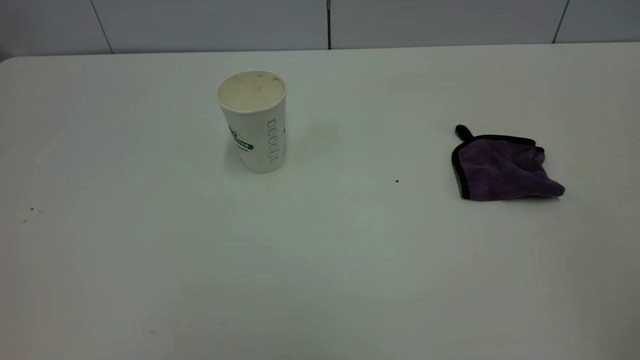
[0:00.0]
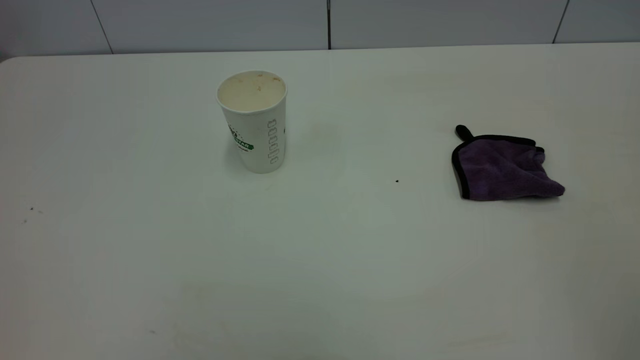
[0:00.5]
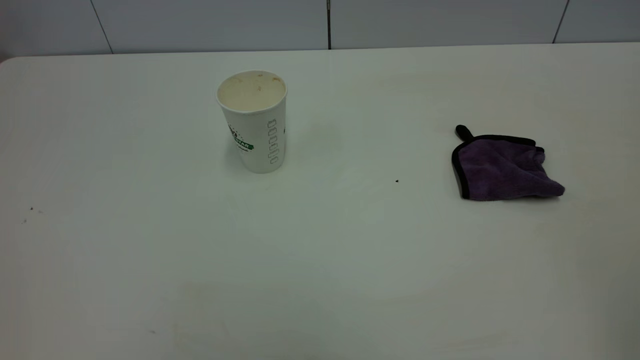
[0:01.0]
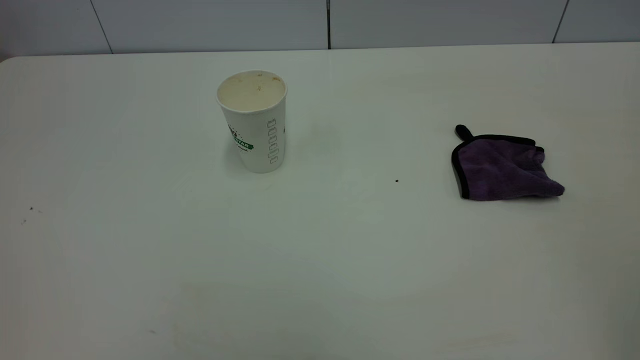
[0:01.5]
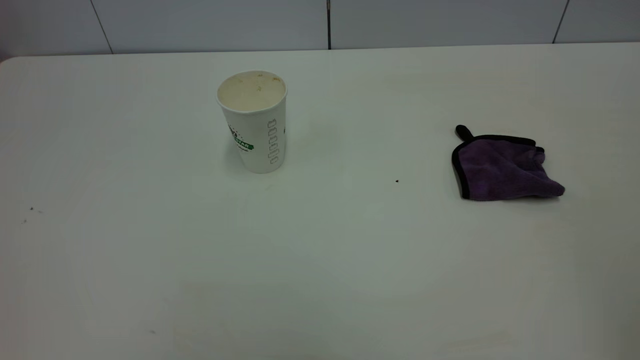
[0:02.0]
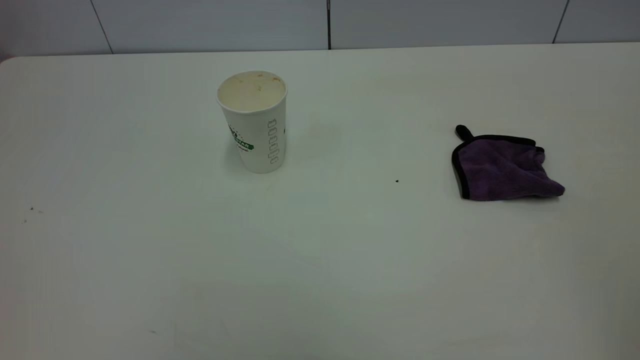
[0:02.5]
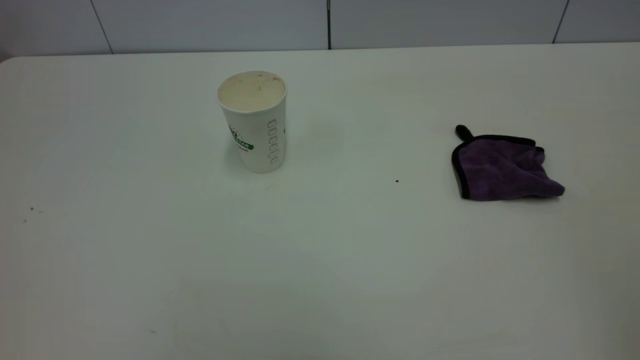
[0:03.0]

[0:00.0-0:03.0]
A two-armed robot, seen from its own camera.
Task of the whole recording: the left gripper pick up the fallen cup and place it upright, the right gripper grasp the purple rag and wipe the tea stain on the table, the right gripper put the purple rag back in its original position.
0:01.5 to 0:03.0: Both grippers stay about where they are.

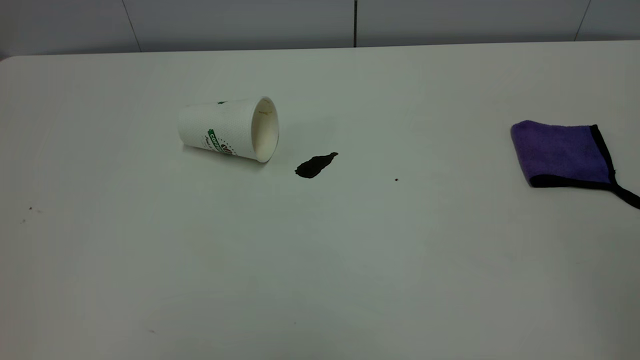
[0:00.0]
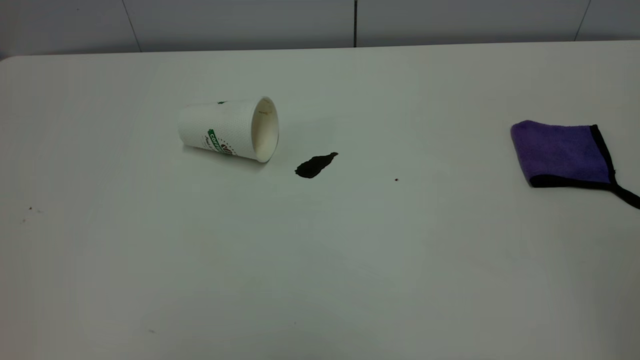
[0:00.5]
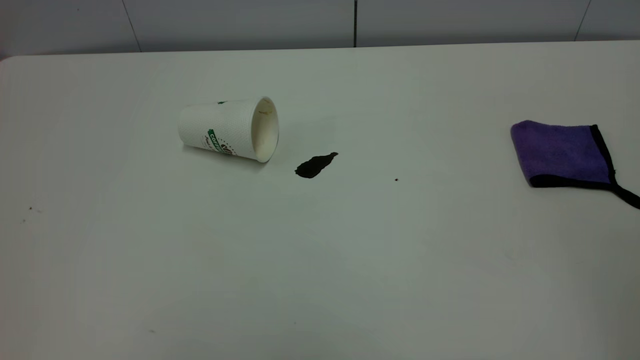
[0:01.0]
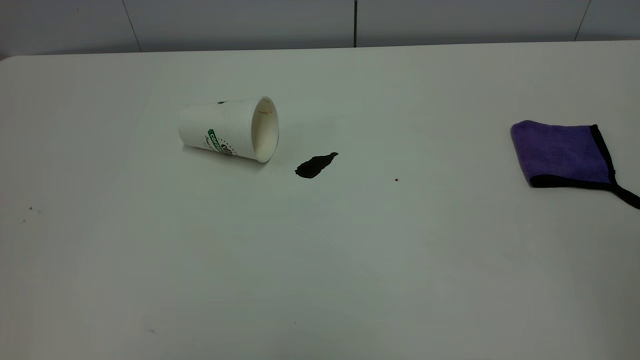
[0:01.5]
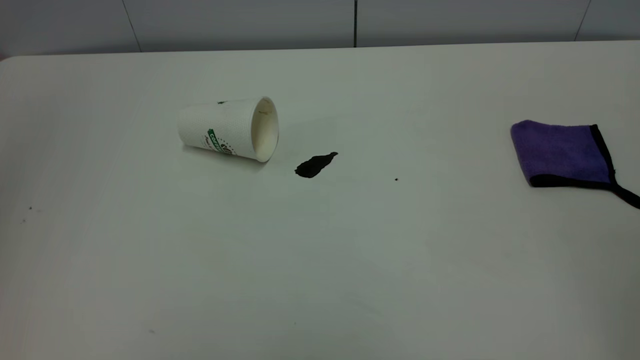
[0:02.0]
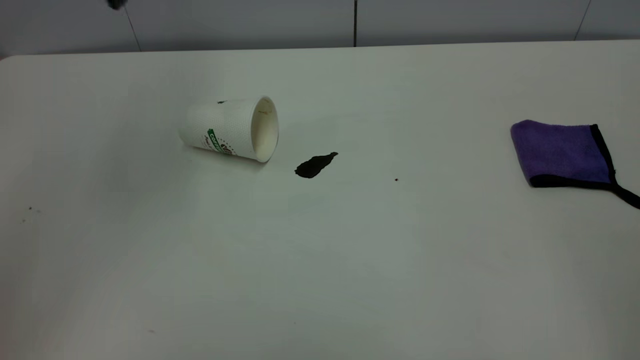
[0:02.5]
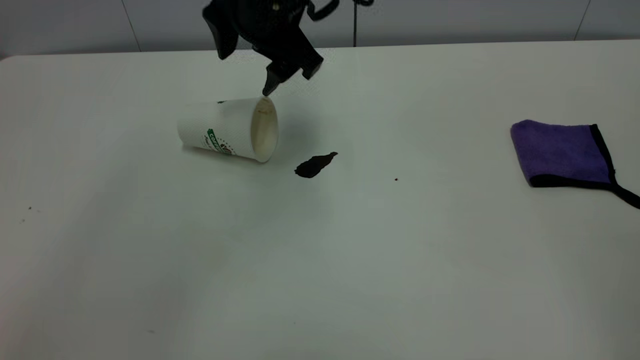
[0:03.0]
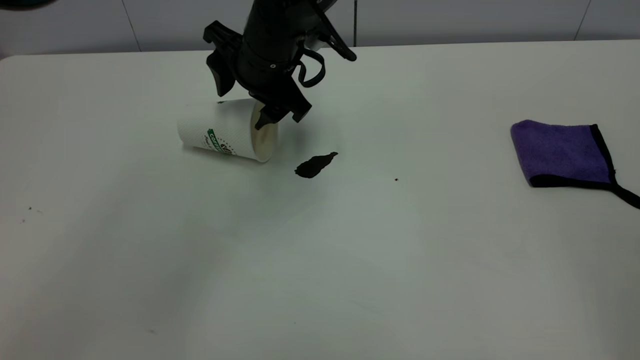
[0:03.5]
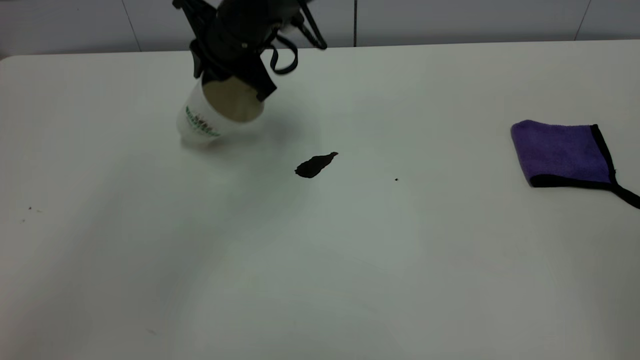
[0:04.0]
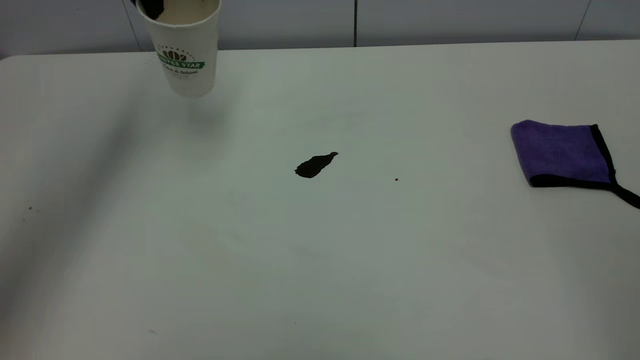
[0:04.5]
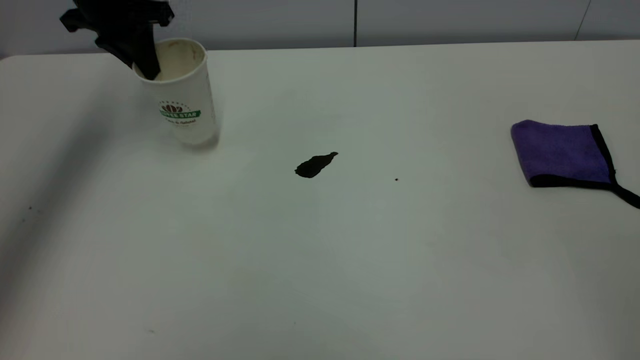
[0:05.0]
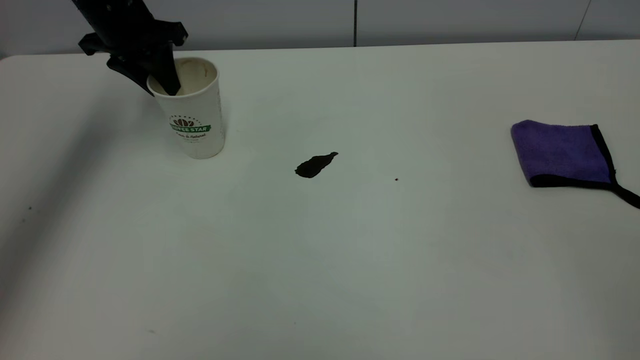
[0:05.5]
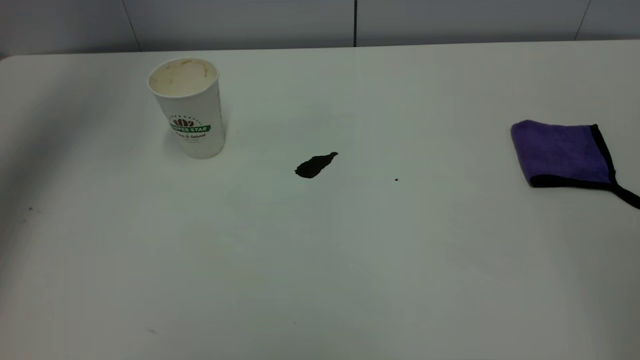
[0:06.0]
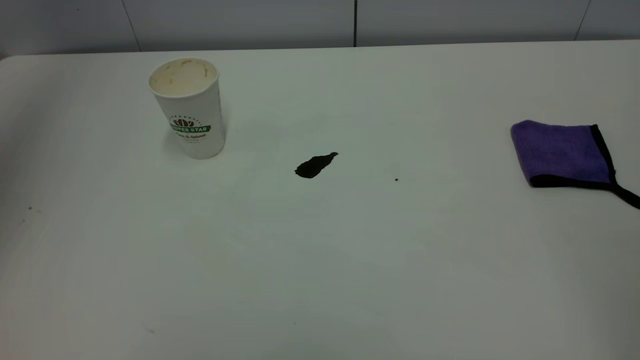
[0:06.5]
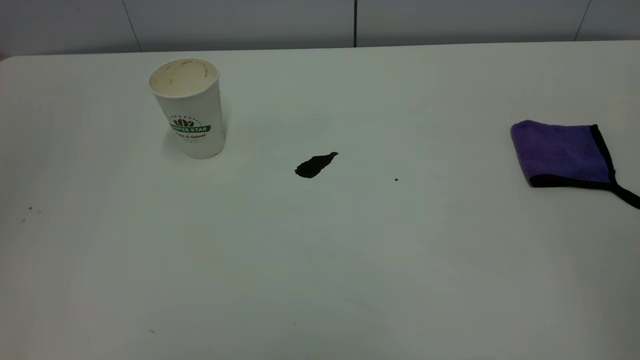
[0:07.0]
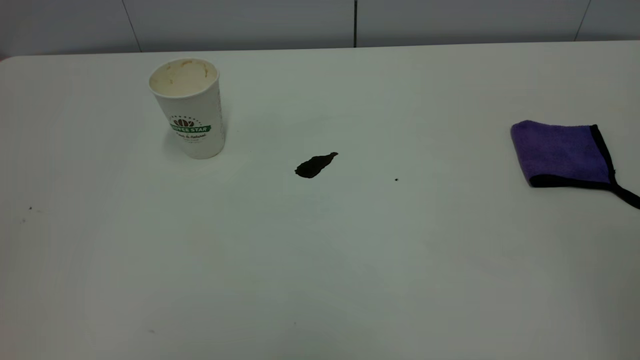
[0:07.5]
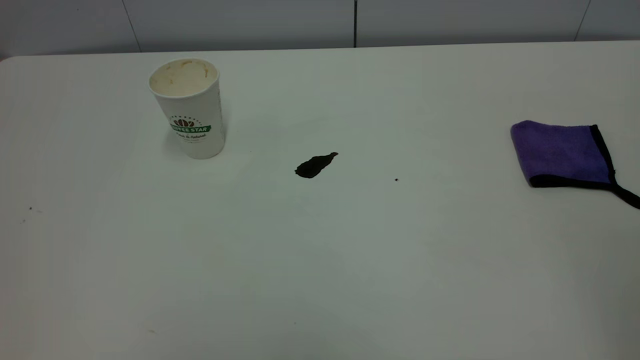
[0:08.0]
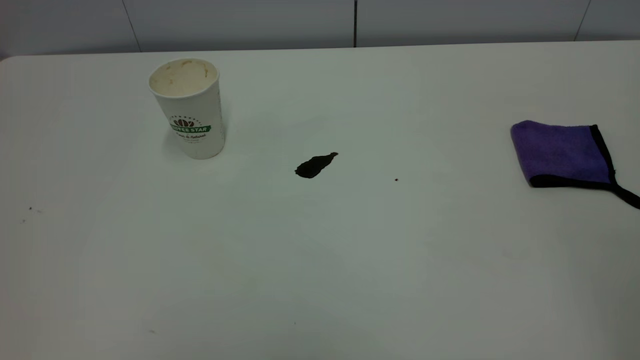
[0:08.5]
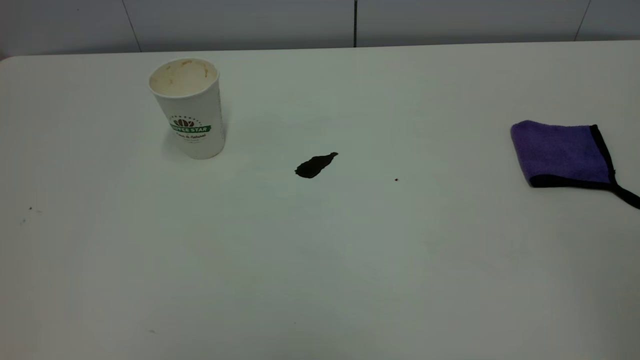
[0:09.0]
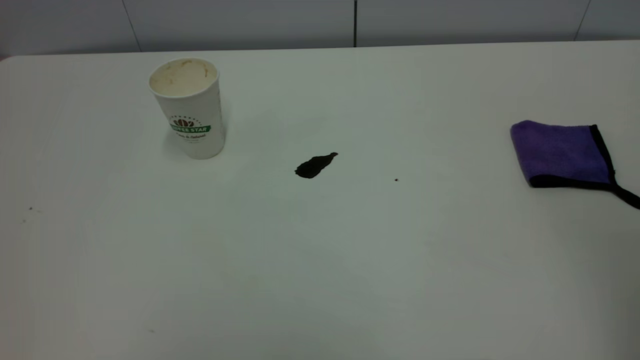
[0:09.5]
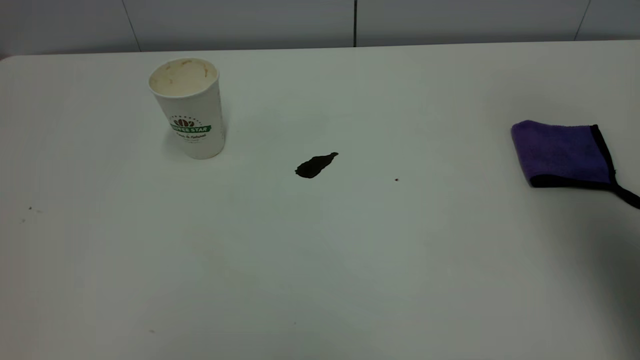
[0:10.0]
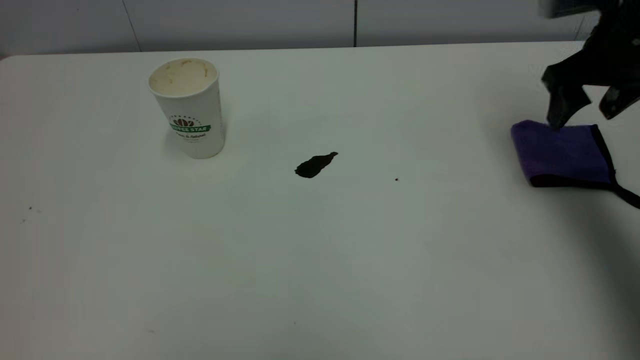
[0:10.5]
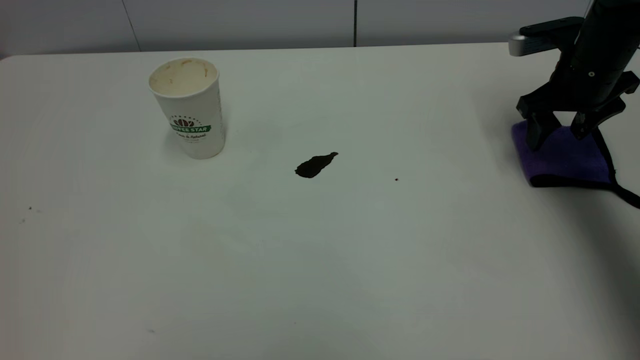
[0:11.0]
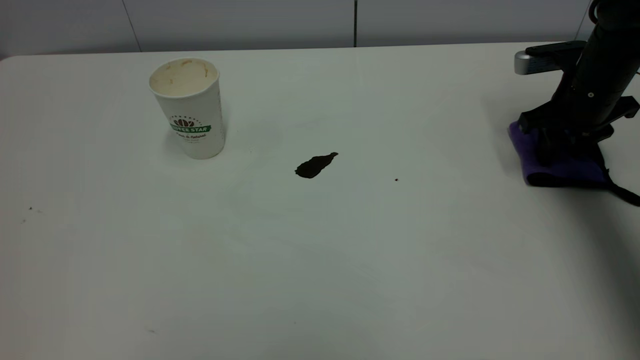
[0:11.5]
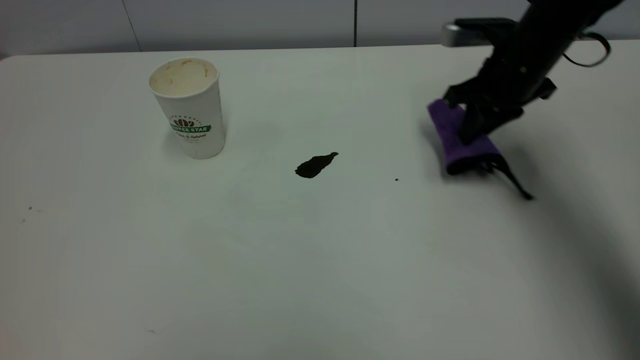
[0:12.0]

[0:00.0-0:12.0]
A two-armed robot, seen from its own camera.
Task of the whole recording: the left gripper pick up the fallen cup and place it upright, the right gripper grasp the purple rag and wipe the coffee stain on the table, the right gripper put the purple rag back in its original position.
Step, 0:00.0 to 0:05.5: Stand the paper cup upright.
0:02.0 to 0:04.0: The left gripper shifts approximately 40 cm downward, forward and to the right, and closes up.
0:04.0 to 0:06.0: The left gripper goes up and down, roughly 20 cm each way, reversing 2 times, and opens up.
0:06.0 to 0:08.0: The left gripper moves backward, roughly 50 cm, and closes.
0:08.0 to 0:10.0: The right gripper goes about 25 cm forward.
0:10.0 to 0:12.0: The right gripper travels downward, forward and to the left by roughly 30 cm, and closes its fingers.

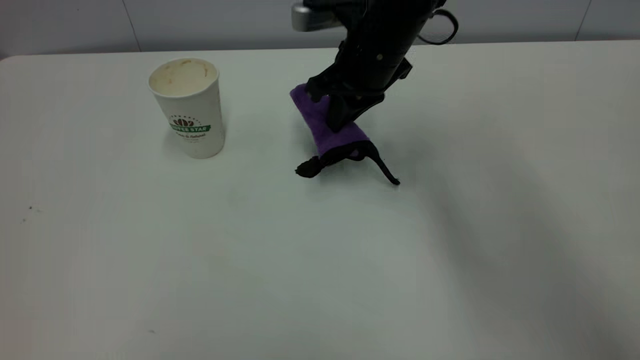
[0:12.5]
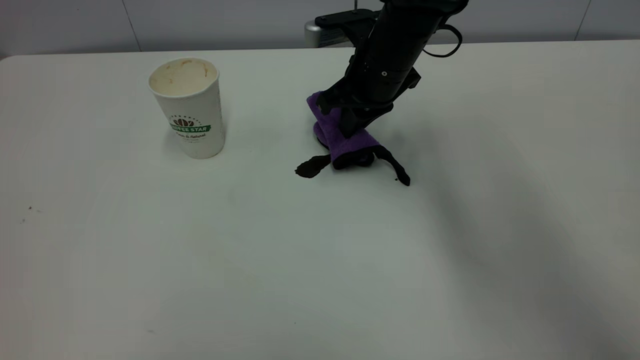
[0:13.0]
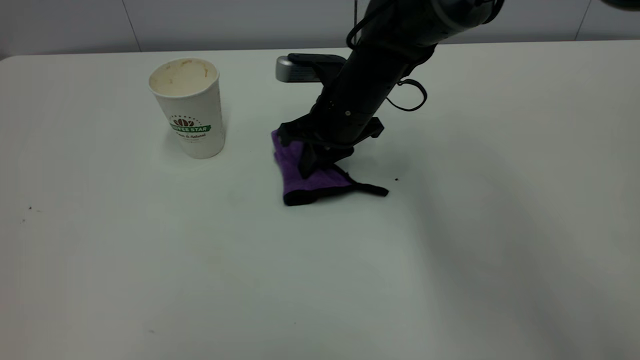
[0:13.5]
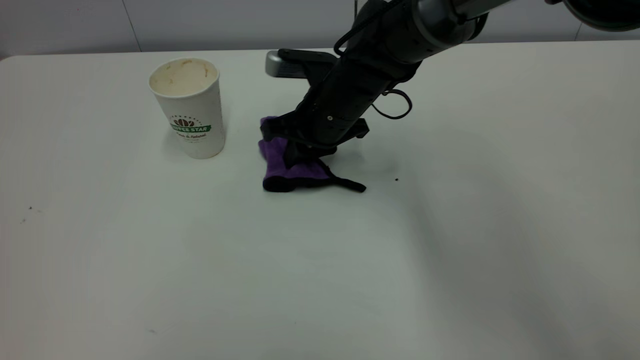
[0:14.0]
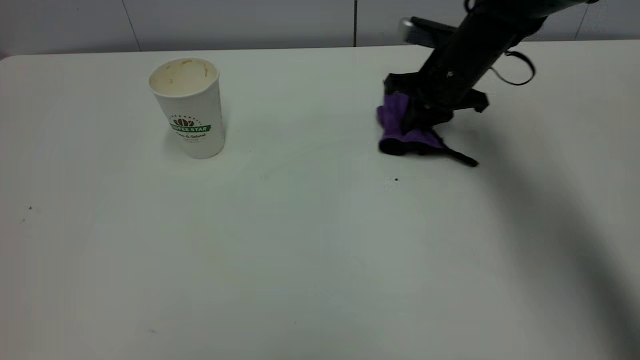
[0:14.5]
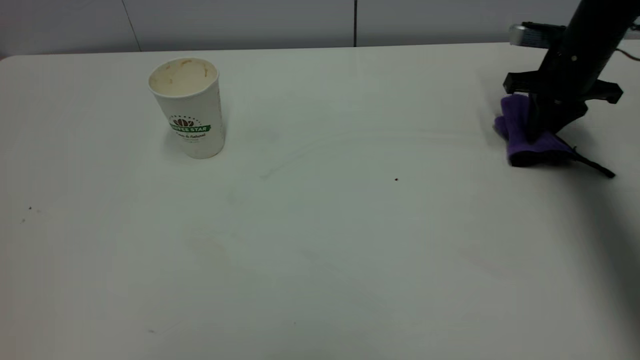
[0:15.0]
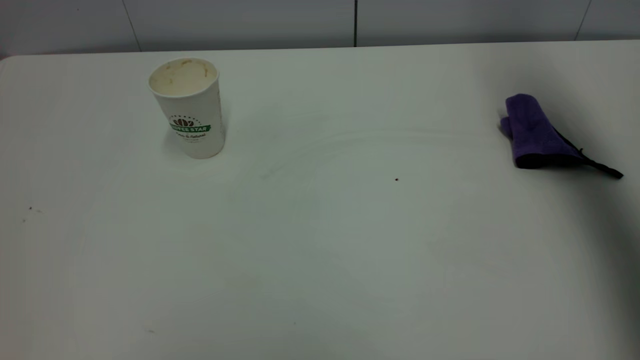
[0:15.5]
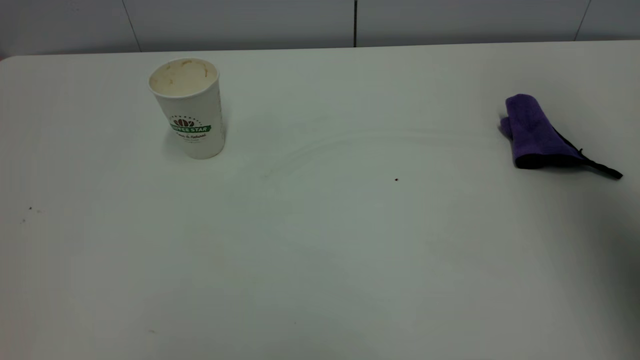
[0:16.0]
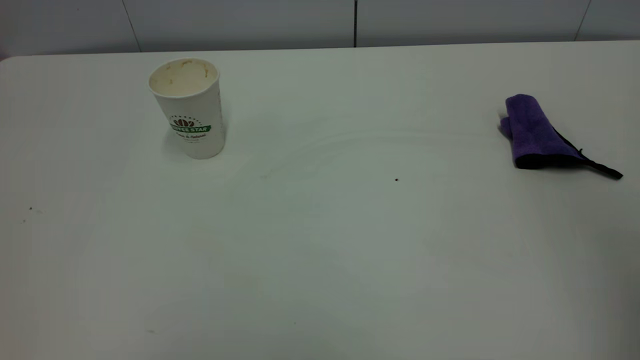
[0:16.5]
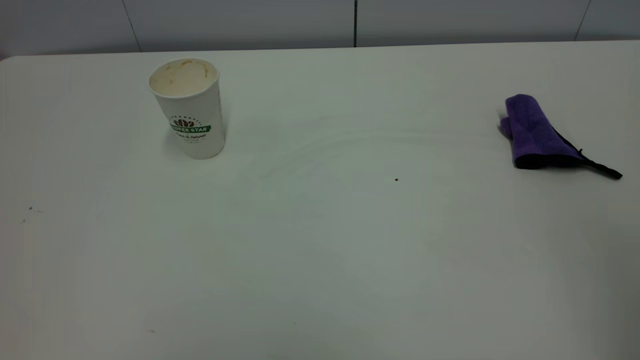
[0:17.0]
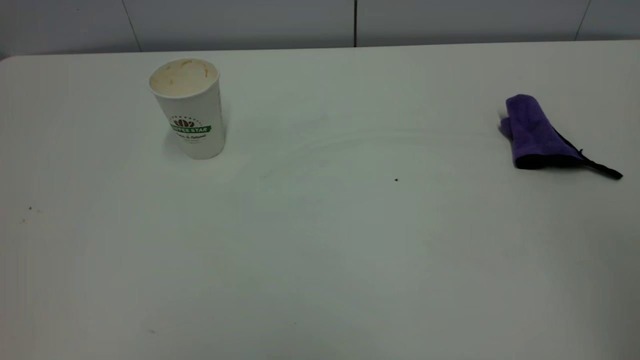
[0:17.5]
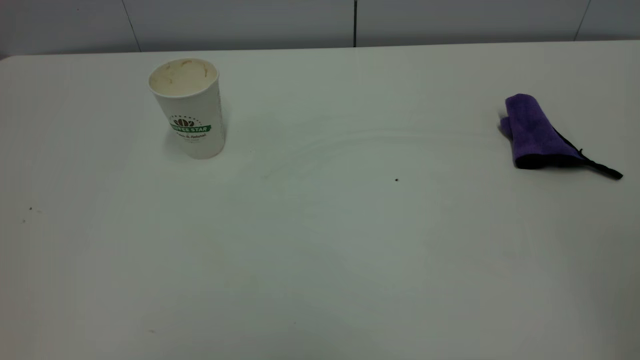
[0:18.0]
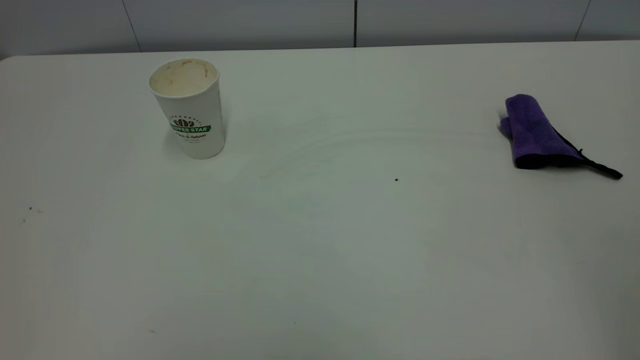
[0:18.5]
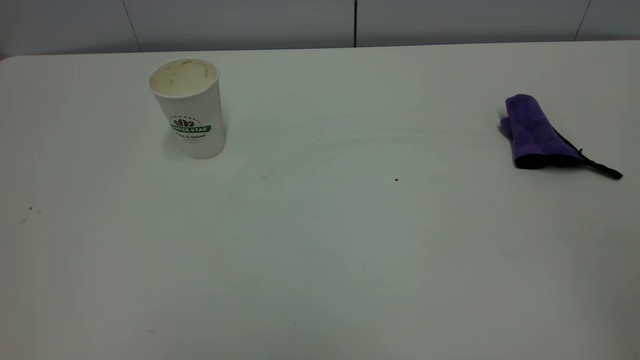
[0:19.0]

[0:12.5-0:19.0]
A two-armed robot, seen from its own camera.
Task of the whole recording: the left gripper pick up the fallen cup and place it upright, the right gripper grasp the purple rag and wipe the coffee stain on the table, the right gripper put the purple rag back in its original position.
Step, 0:12.5 to 0:15.0: Wipe the stains off the table with a rag.
0:12.5 to 0:14.5: The right gripper travels to the right and downward by some 15 cm.
0:14.5 to 0:17.0: The right gripper shifts roughly 50 cm backward and upward, and opens its fingers.
